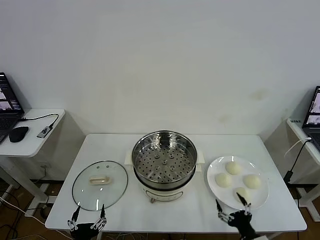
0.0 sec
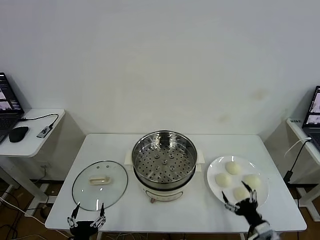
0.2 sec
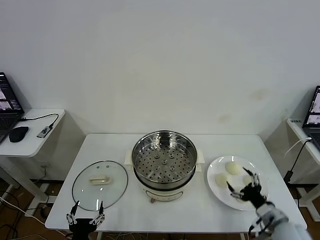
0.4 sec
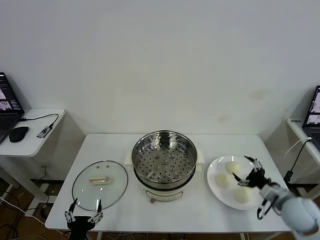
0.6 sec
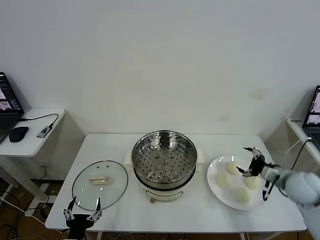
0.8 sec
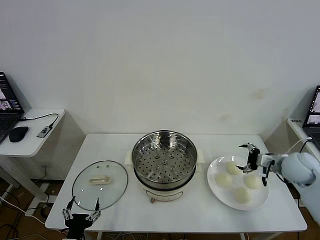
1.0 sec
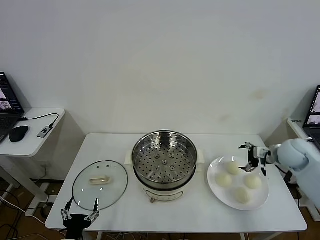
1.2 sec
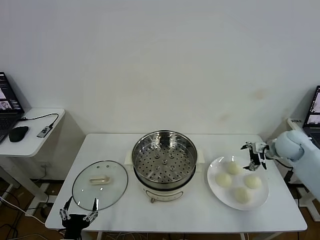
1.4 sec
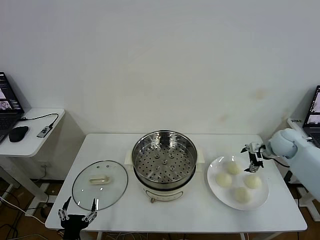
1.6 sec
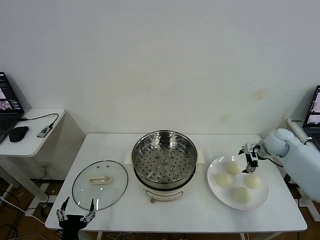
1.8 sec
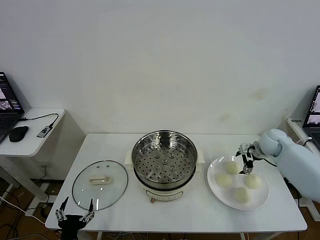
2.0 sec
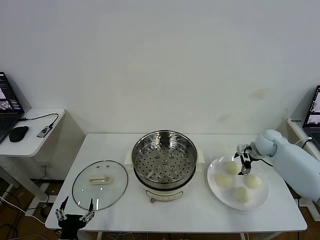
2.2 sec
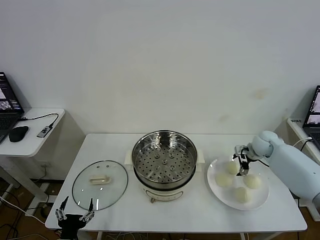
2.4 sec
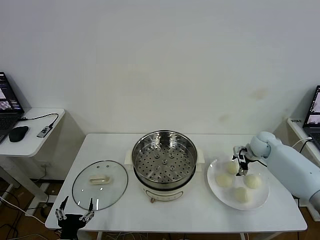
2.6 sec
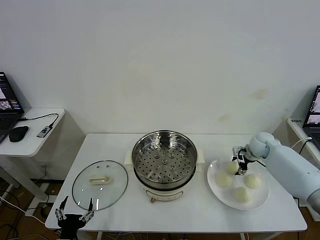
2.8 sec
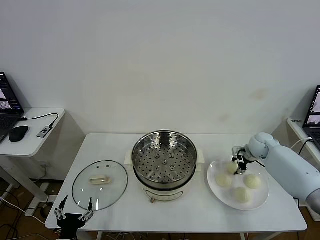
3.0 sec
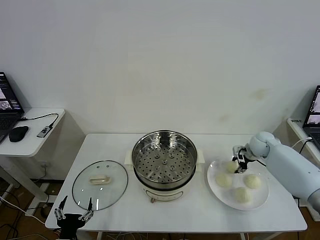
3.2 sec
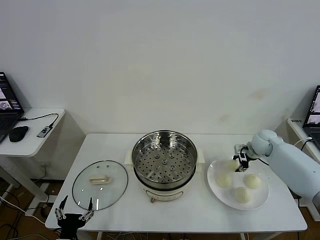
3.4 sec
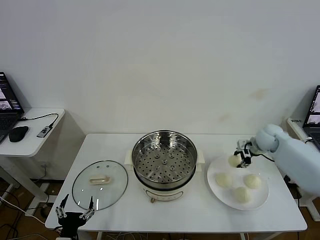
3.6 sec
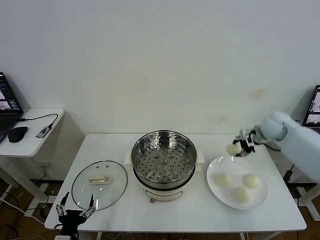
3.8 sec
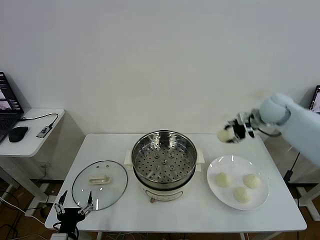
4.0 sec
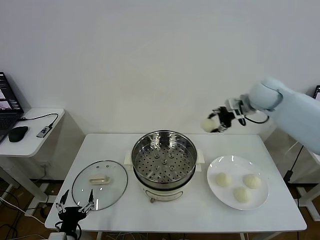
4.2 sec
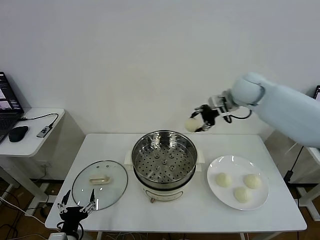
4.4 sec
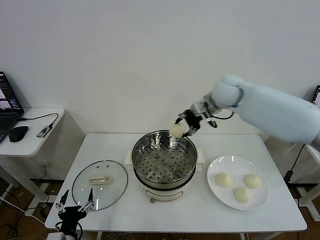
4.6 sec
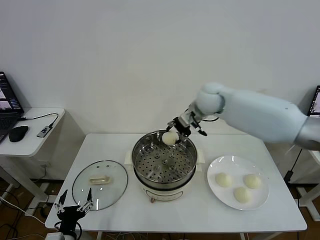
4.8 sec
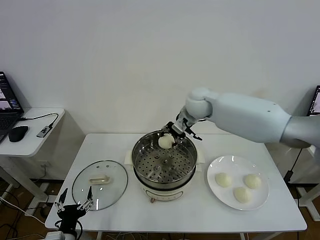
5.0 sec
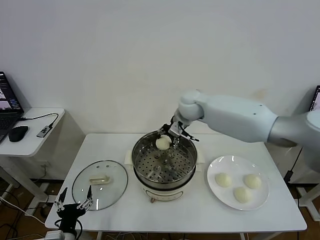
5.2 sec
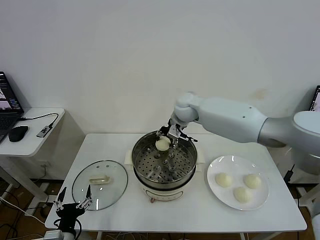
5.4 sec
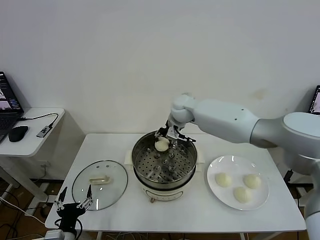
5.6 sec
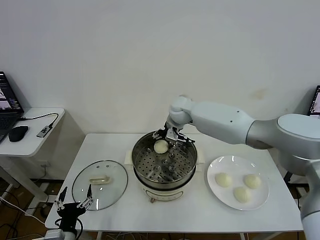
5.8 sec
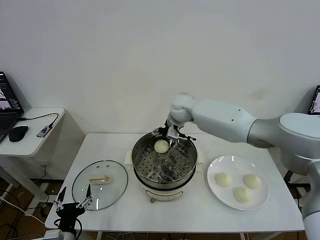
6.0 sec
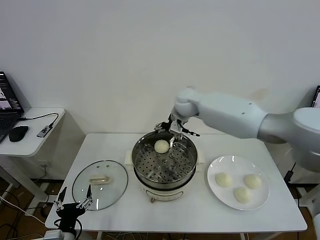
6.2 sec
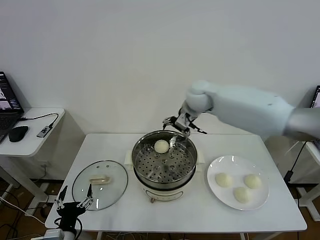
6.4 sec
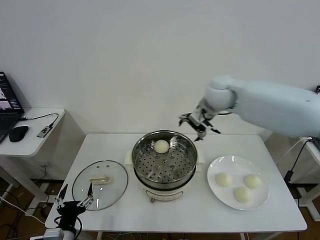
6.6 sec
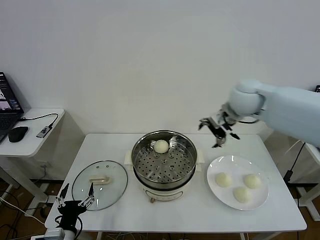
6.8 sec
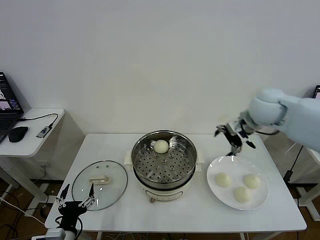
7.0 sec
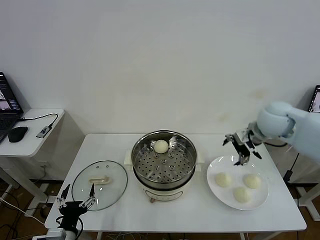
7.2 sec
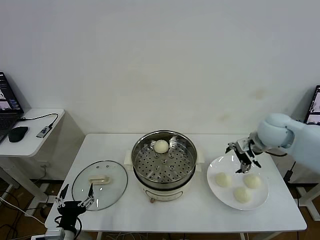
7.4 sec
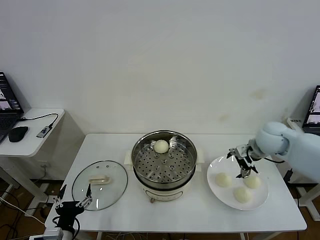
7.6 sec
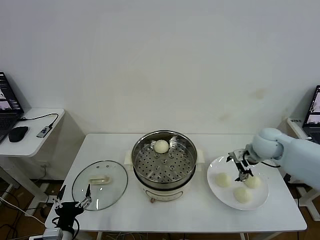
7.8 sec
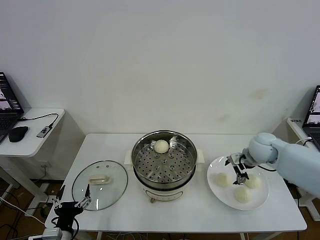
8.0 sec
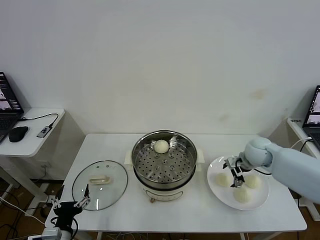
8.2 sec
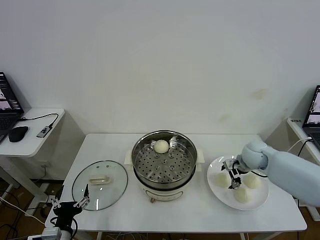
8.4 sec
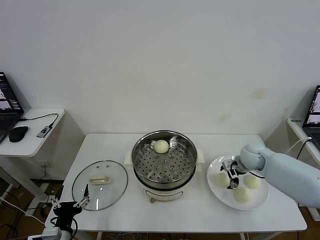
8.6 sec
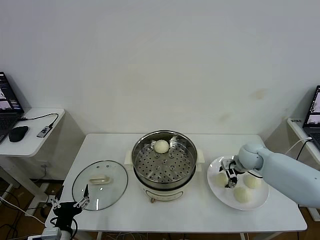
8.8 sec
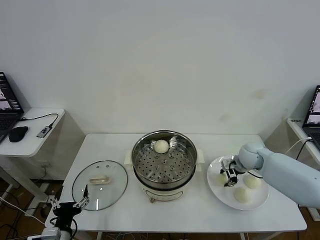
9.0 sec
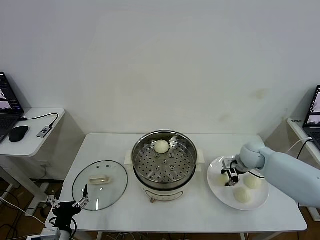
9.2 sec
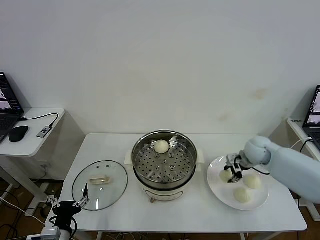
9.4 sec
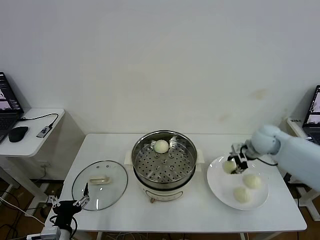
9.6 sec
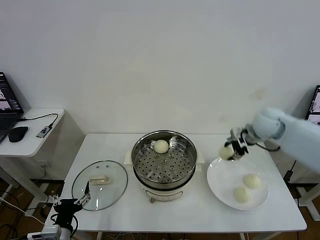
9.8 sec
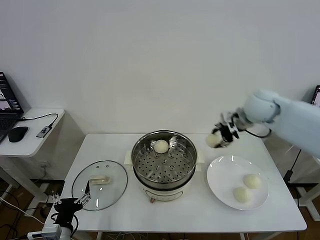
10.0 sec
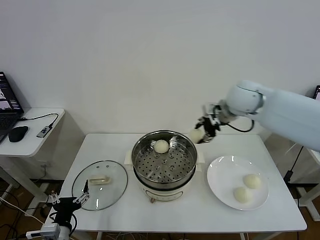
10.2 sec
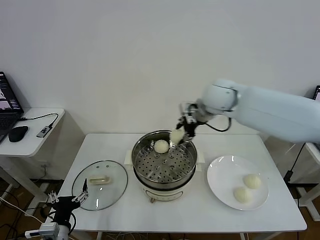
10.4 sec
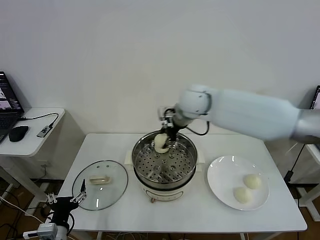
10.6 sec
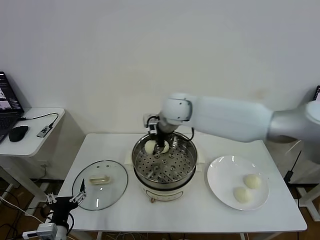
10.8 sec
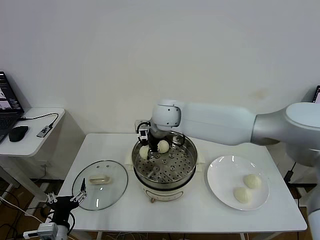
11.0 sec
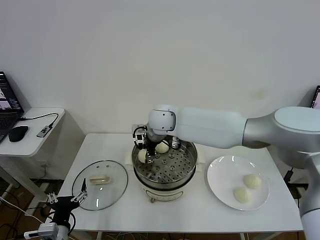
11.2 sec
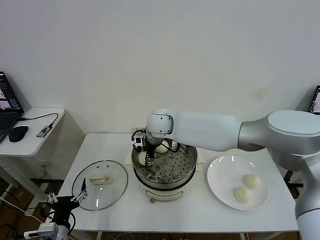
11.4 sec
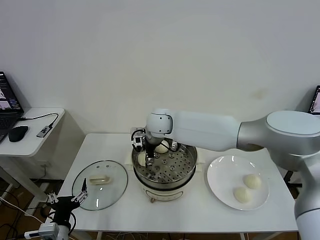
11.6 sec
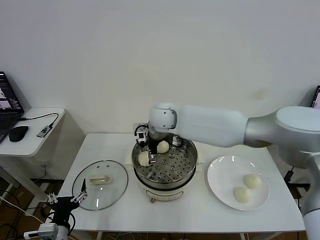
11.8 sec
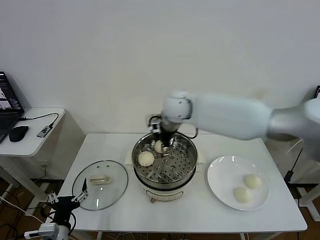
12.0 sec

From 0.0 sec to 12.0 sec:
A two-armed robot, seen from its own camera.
Task of the whole recording: take steamed baozi put them in steamer then cover it.
Step, from 0.0 sec to 3.0 sec: Grasp the baozi in the plate with right gripper.
Step, from 3.2 sec to 6.0 sec: Place the baozi on the steamer with right gripper.
Step, from 6.2 sec to 8.8 sec: Grasp the baozi in the plate with right gripper.
Step, from 9.2 sec to 11.6 sec: Place the baozi on the steamer with right gripper.
From 1.6 sec to 3.0 sec: The right gripper goes roughly 5 cm downward, and closes.
From 3.0 sec to 4.4 sec: The right gripper goes some 30 cm upward and to the left.
From 4.4 sec to 6.0 sec: The right gripper travels to the left and downward by approximately 15 cm, and opens up.
From 6.0 sec to 7.6 sec: The right gripper moves to the right and backward, roughly 30 cm.
From 7.6 sec to 9.0 sec: The right gripper heads downward, covering approximately 10 cm, and closes up.
From 9.0 sec to 10.4 sec: The right gripper heads upward and to the left, covering about 30 cm.
From 10.4 sec to 12.0 sec: The right gripper goes about 5 cm to the left, and opens its fingers.

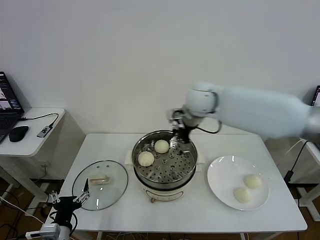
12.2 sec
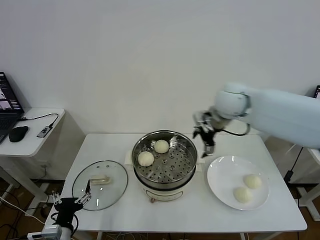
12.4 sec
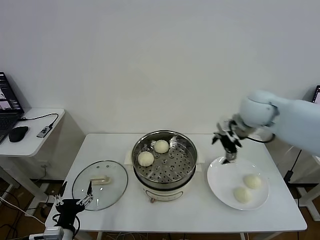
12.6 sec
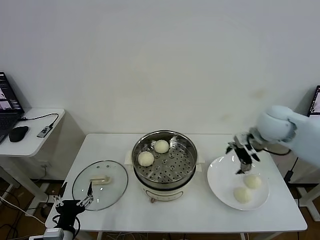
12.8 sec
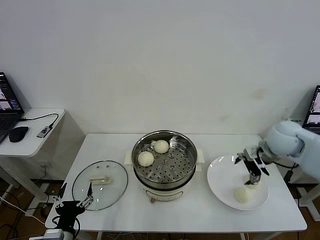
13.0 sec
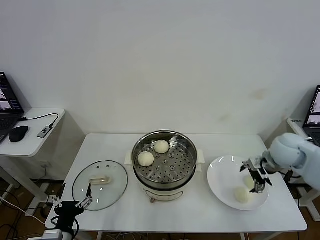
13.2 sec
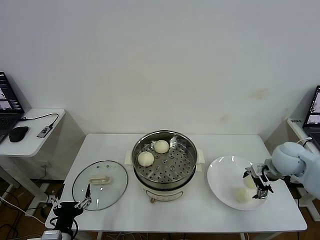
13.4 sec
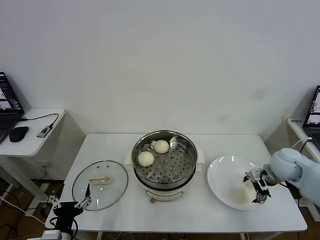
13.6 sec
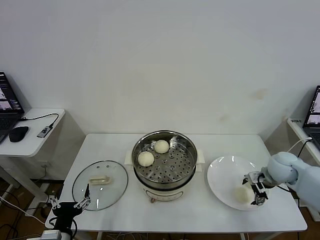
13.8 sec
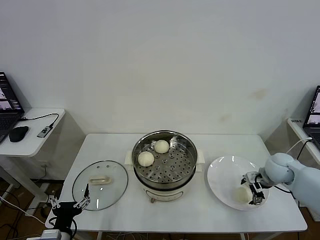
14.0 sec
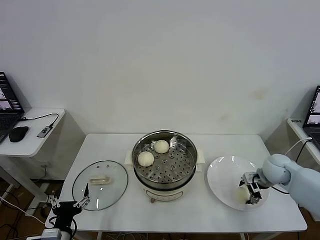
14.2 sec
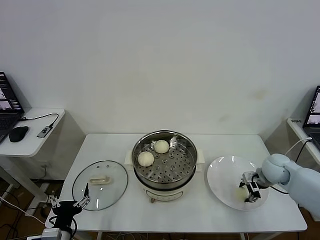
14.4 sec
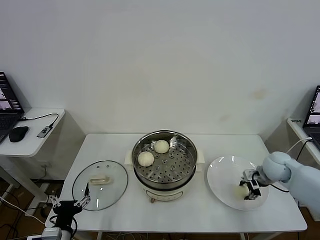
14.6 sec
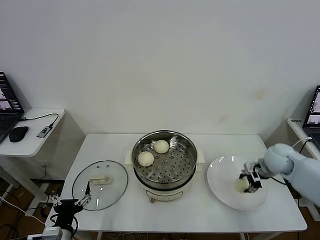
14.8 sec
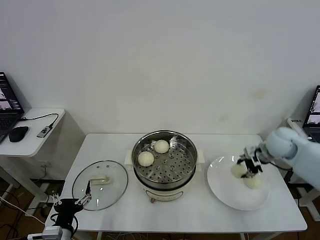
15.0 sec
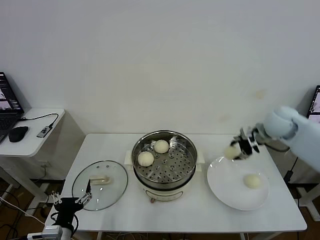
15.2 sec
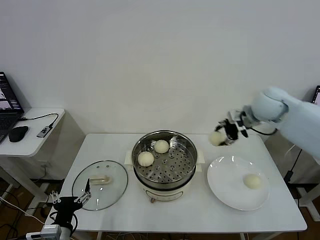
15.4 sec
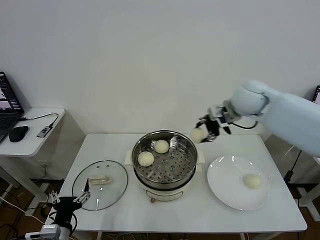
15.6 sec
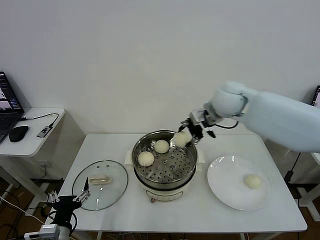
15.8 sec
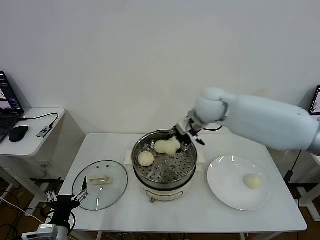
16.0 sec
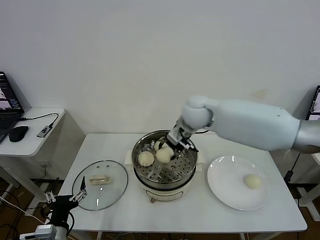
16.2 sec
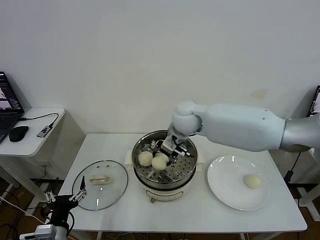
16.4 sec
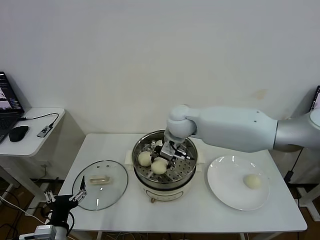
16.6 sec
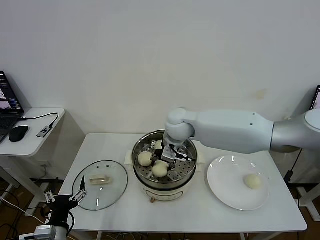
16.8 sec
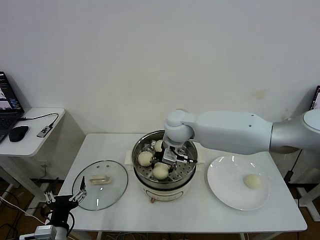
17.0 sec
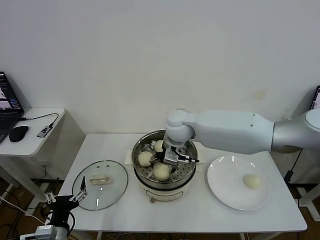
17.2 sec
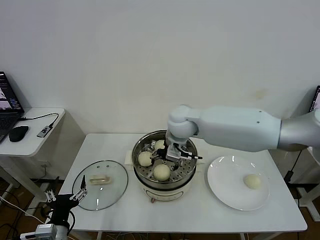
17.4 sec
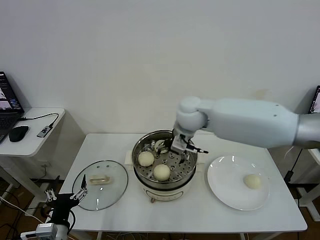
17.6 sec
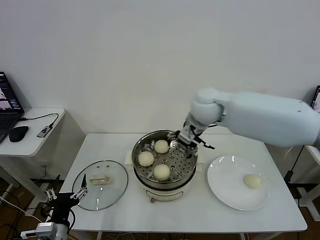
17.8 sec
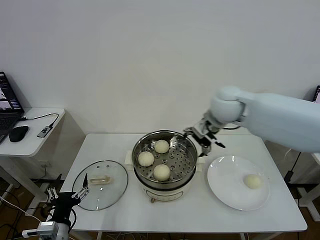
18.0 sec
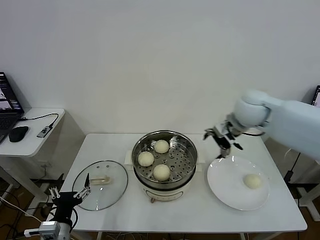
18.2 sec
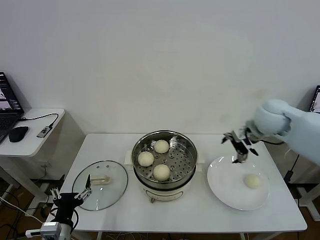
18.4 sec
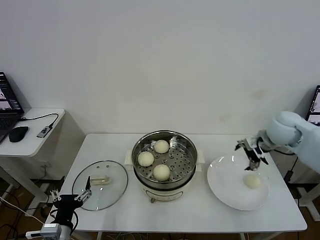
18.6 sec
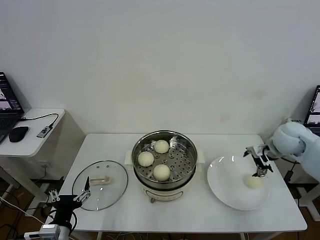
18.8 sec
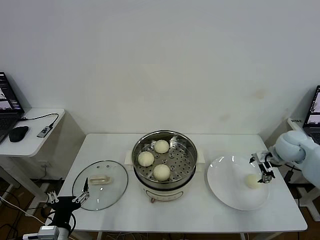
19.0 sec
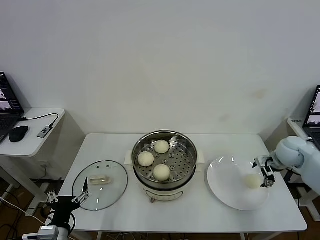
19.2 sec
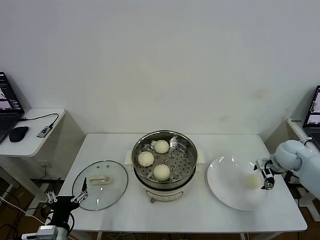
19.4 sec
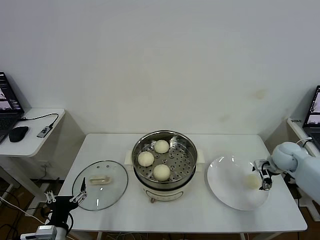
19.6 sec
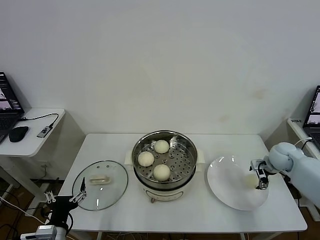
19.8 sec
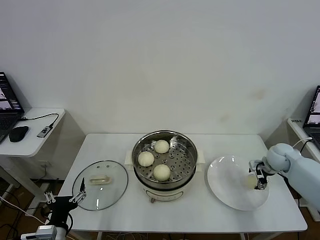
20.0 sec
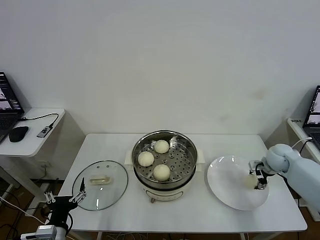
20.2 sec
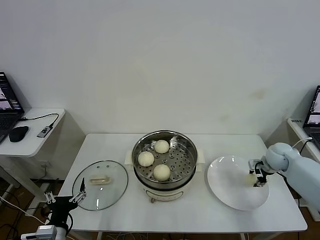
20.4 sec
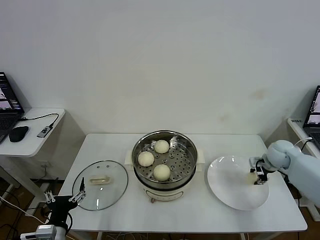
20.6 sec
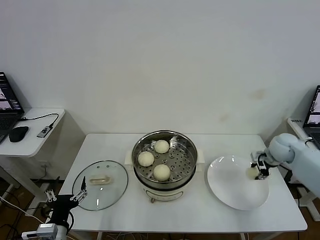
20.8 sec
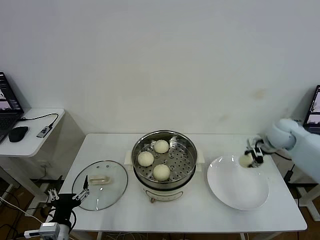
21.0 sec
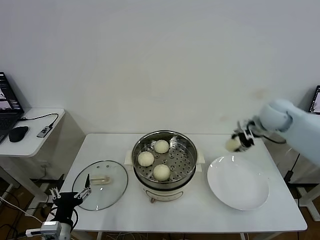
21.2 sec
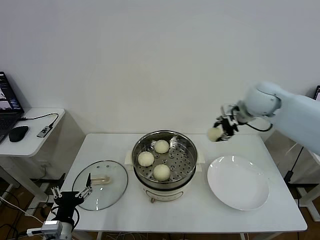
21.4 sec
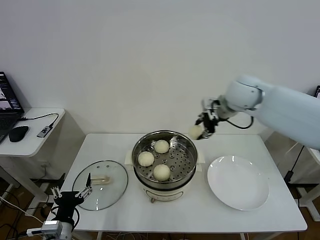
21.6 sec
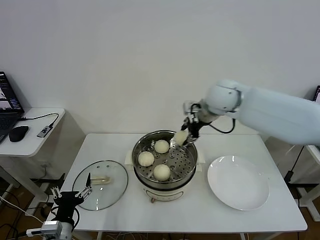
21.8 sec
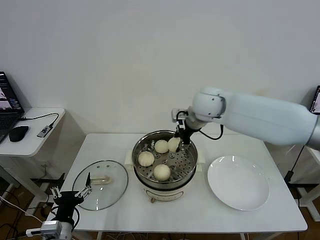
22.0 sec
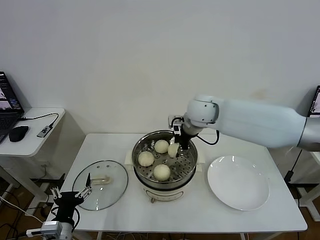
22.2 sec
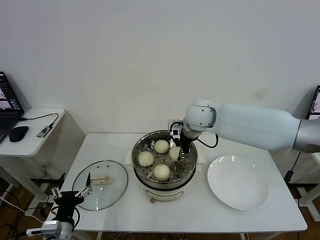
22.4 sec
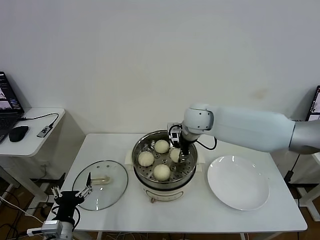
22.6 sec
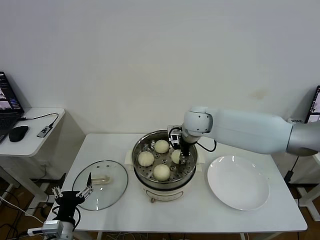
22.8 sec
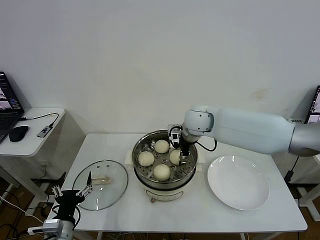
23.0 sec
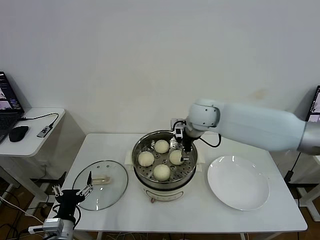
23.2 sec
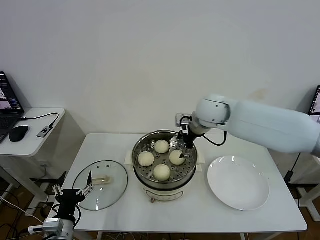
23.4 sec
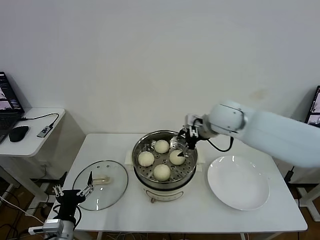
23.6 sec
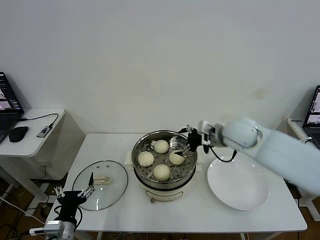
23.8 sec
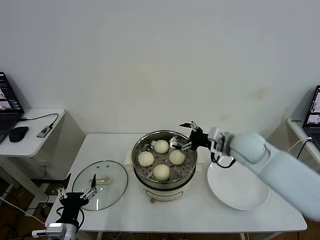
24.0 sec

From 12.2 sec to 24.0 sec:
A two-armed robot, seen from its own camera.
Task of the whole recording: take steamed baozi put them in steamer then cover it.
Step, from 12.2 sec to 14.2 sec: Grasp the baozi in the plate with right gripper.
Step, from 14.6 sec to 17.2 sec: Place the baozi on the steamer with right gripper.
Step, from 17.4 sec to 20.2 sec: Grasp the baozi in the plate with right gripper.
Step, from 20.4 sec to 23.0 sec: Place the baozi on the steamer with right gripper.
From 12.2 sec to 13.6 sec: The right gripper moves to the right, downward and backward, about 35 cm.
From 13.6 sec to 15.2 sec: The right gripper travels upward and forward by roughly 15 cm, and closes up.
From 15.2 sec to 16.6 sec: The right gripper shifts approximately 30 cm to the left.
From 16.6 sec to 18.2 sec: The right gripper is displaced to the right by some 20 cm, and opens up.
From 18.2 sec to 19.6 sec: The right gripper heads downward and to the right, covering approximately 25 cm.
From 19.6 sec to 21.0 sec: The right gripper shifts approximately 10 cm upward, and closes its fingers.
From 21.0 sec to 22.6 sec: The right gripper travels to the left by some 30 cm.
From 22.6 sec to 24.0 sec: The right gripper is displaced to the right and backward by roughly 15 cm, and opens.
